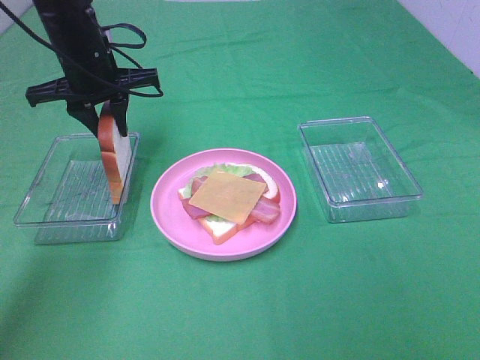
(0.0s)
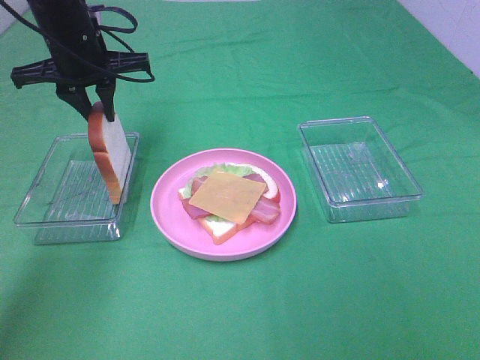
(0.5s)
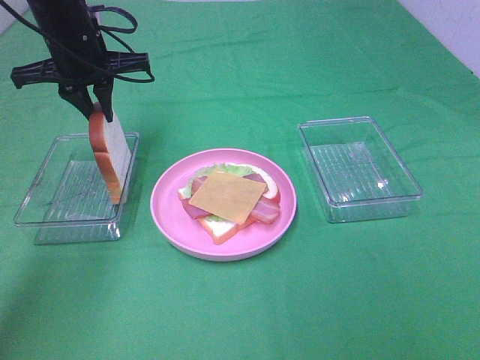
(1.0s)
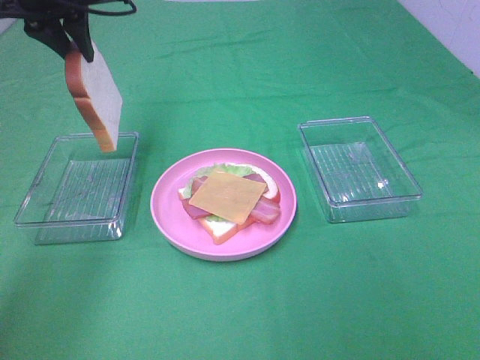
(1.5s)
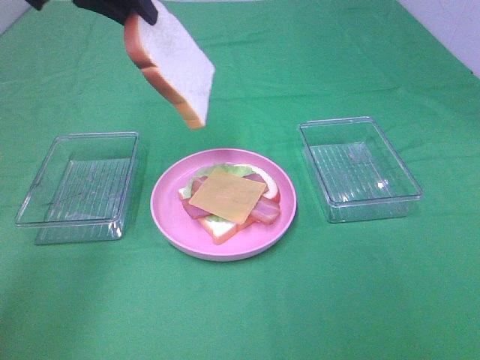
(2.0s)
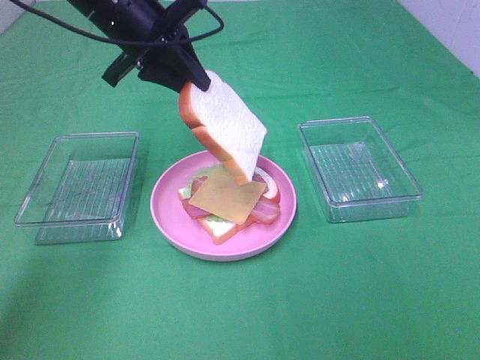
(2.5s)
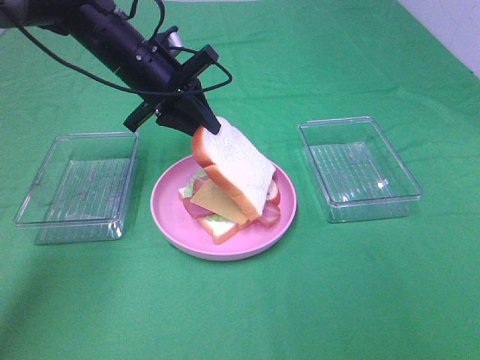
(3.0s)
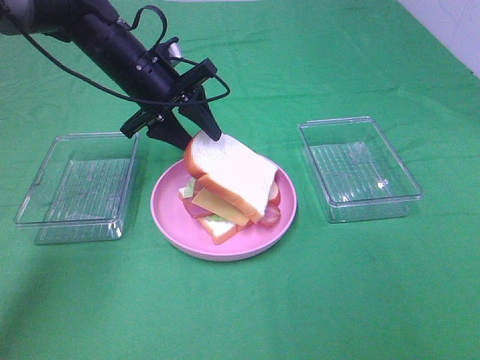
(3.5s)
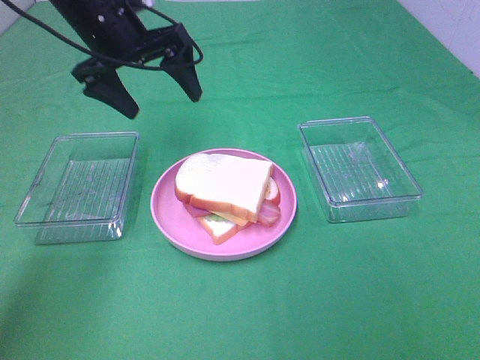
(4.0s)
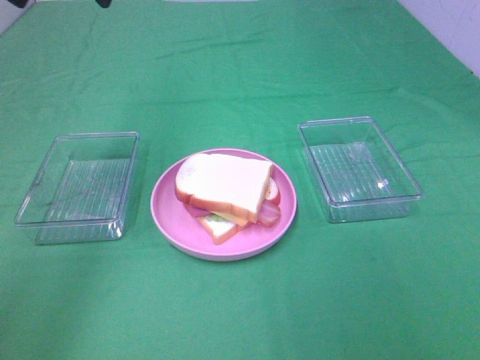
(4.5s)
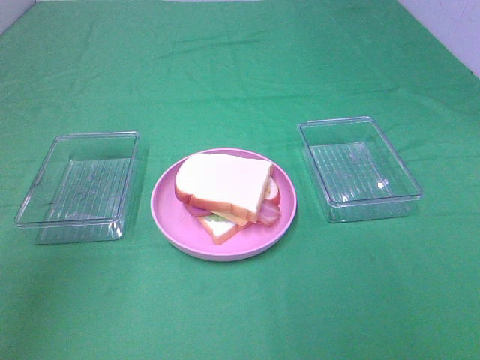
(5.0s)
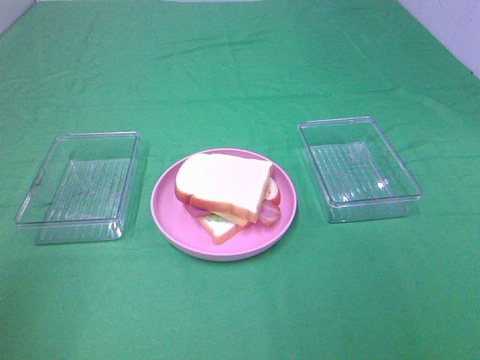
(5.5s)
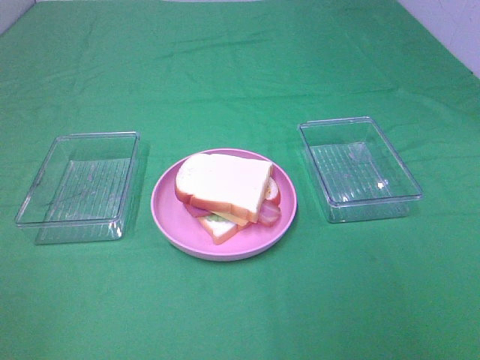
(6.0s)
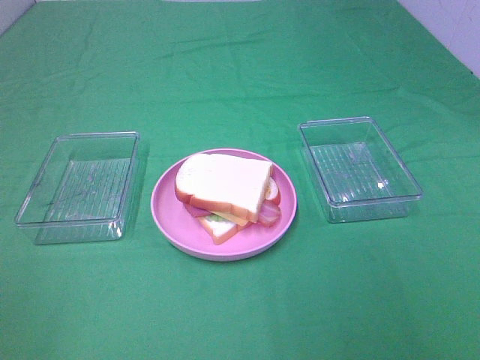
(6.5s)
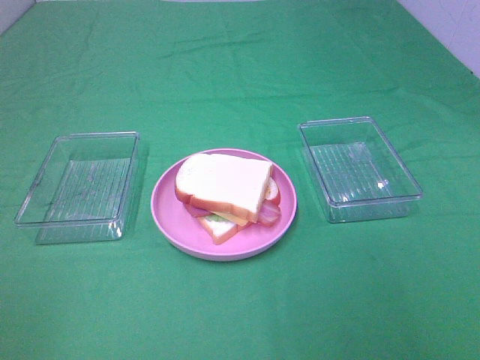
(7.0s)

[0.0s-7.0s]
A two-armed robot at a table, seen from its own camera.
Task of the whole recording: Make sandwiches.
Step, 1.0s to 3.5s: Left hand:place the bread slice on the cheese slice.
0.0s to 2.0s: The left gripper is displaced upward by some 15 cm.
2.0s to 3.5s: The left gripper is displaced downward by about 15 cm, and opens up.
3.5s to 5.0s: The left gripper goes approximately 30 cm backward, upward and to the left, and opens.
5.0s to 7.0s: The left gripper travels backward by about 20 cm.
